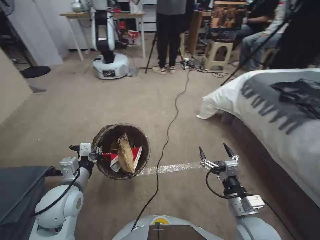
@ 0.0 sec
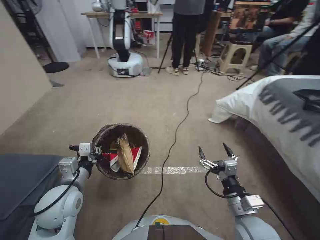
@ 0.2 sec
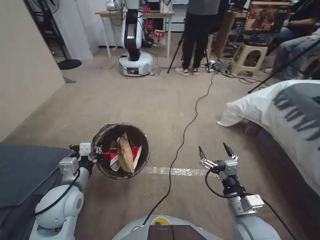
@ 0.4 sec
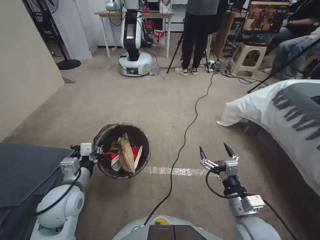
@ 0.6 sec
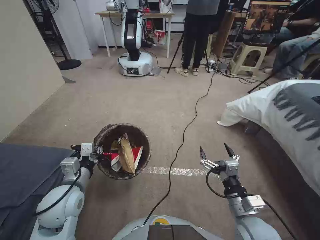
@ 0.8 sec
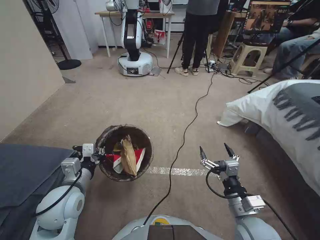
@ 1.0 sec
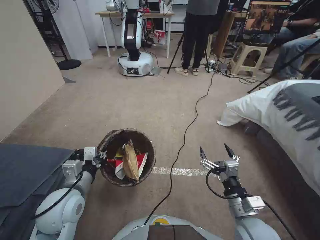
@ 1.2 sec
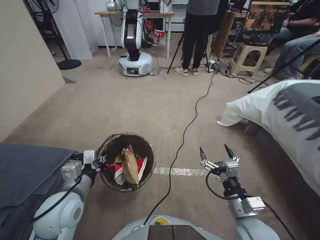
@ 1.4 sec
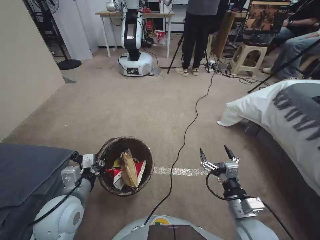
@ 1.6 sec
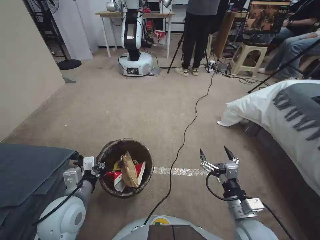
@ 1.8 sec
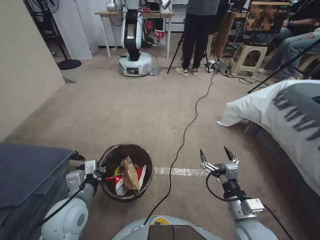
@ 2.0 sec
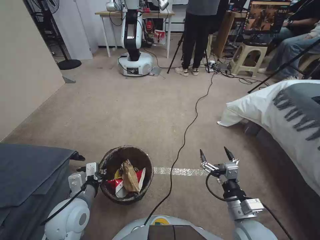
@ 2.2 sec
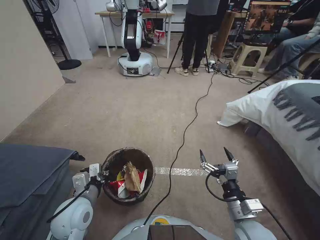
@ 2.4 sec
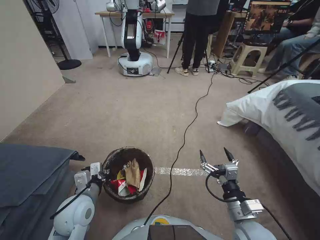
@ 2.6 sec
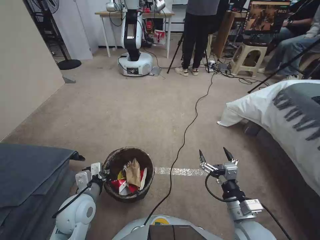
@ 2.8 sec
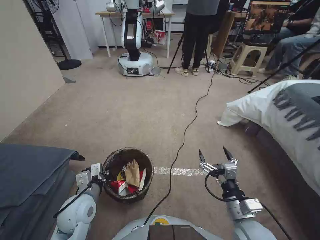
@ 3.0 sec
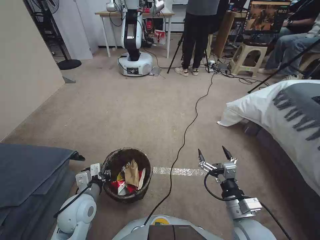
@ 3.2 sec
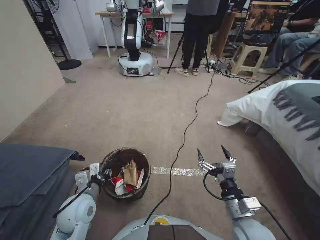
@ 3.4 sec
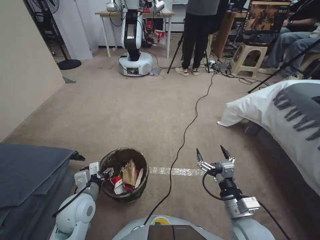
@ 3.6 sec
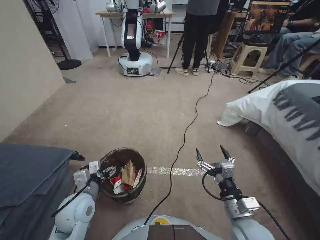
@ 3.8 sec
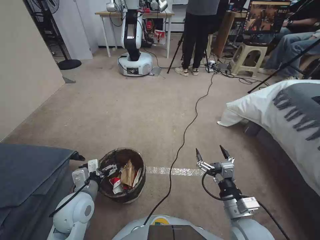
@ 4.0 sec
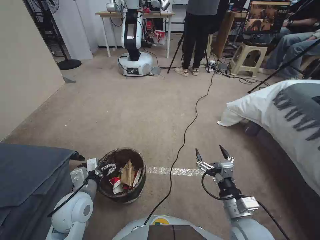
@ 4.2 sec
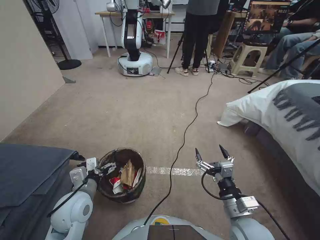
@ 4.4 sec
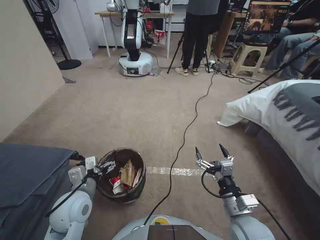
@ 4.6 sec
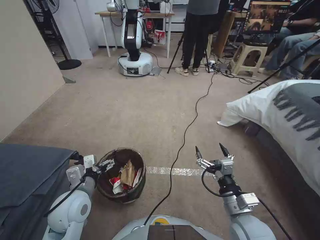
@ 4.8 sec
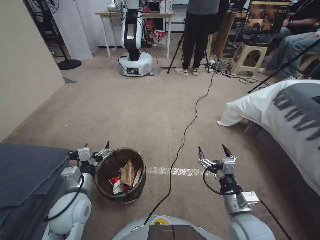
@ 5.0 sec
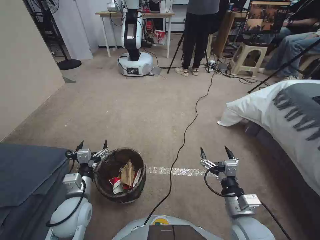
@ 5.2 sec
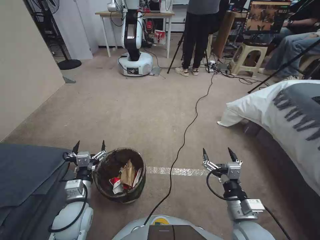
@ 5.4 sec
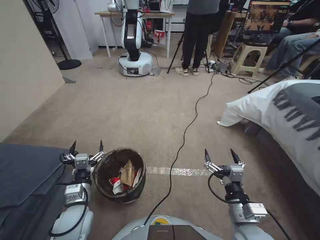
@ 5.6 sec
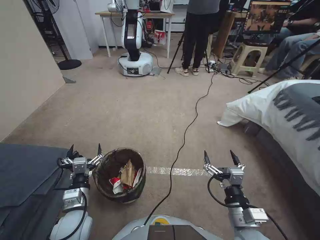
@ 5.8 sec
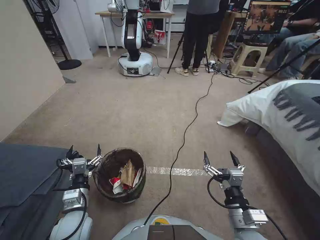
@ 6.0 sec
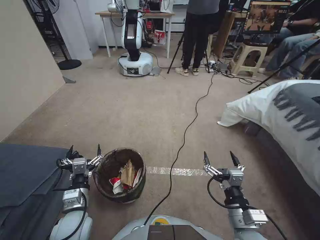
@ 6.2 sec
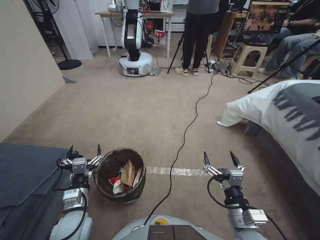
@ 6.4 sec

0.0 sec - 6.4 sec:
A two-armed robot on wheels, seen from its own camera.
Task of the whole recording: Pick up the trash bin, then pick up the garbage from the floor and place it into the trash bin.
1.6 sec - 3.2 sec: The left gripper is displaced downward by about 5 cm.
3.2 sec - 4.8 sec: The left gripper opens.
4.8 sec - 6.4 sec: The left gripper heads downward, covering about 5 cm.
